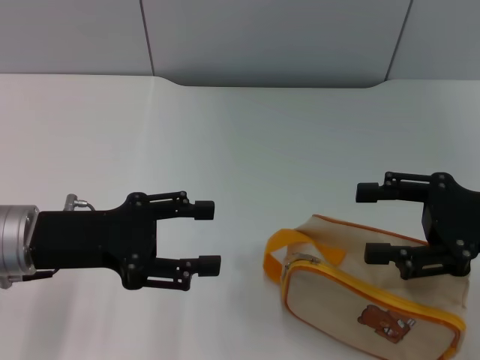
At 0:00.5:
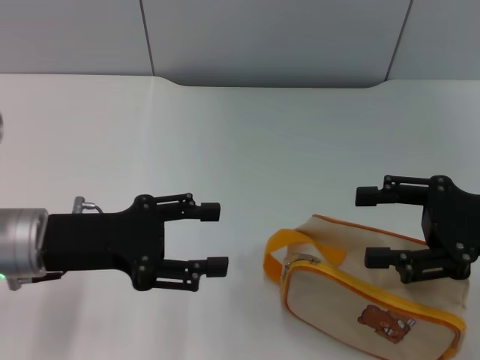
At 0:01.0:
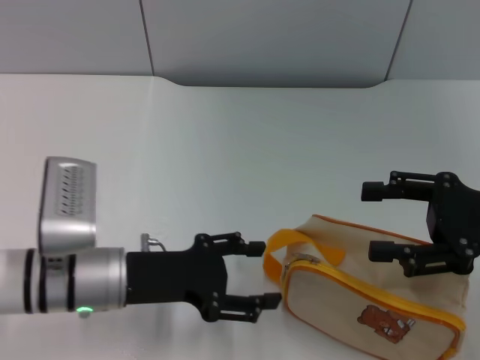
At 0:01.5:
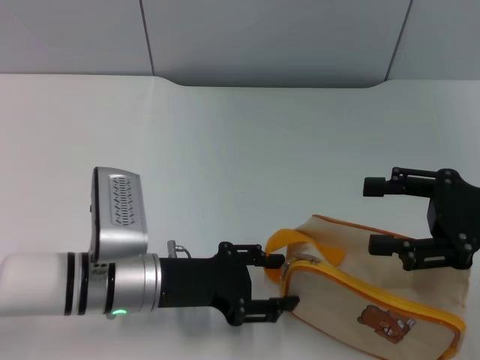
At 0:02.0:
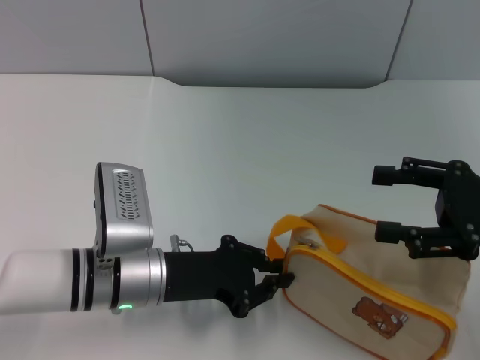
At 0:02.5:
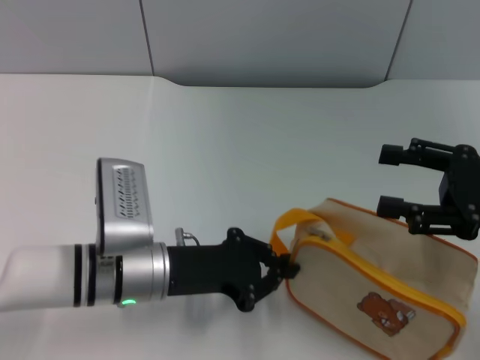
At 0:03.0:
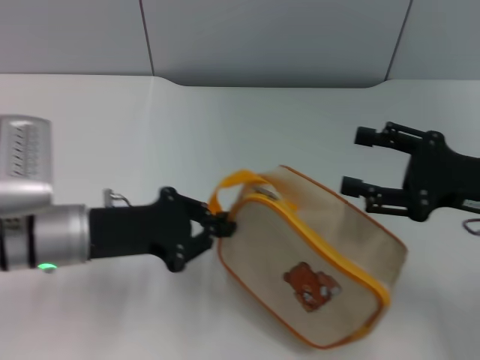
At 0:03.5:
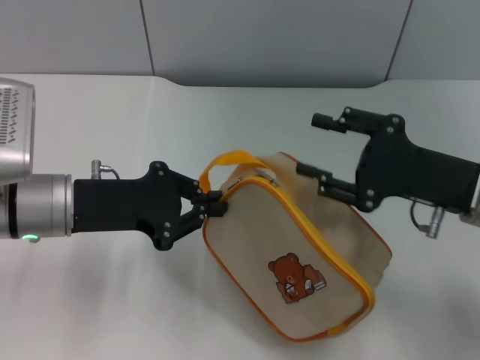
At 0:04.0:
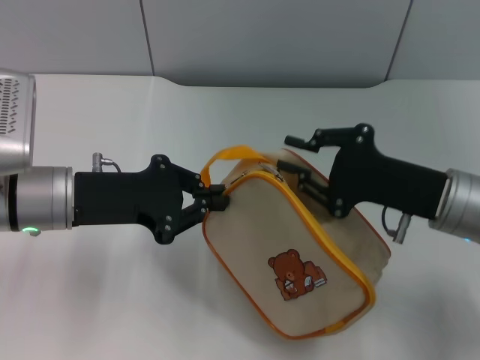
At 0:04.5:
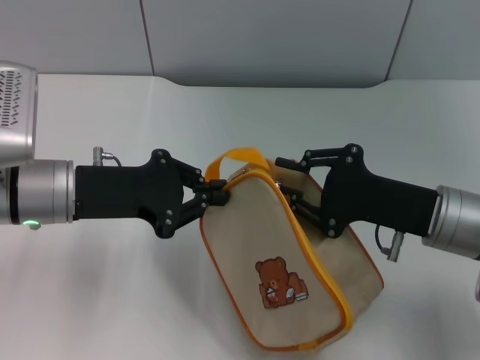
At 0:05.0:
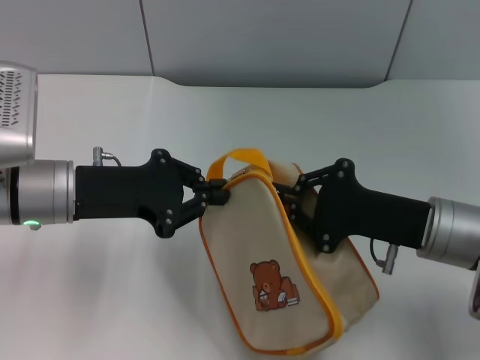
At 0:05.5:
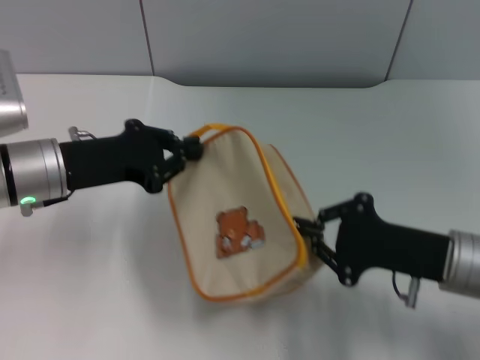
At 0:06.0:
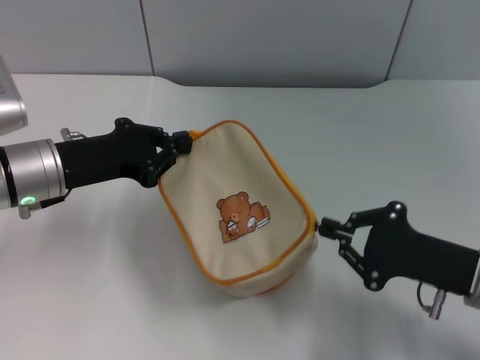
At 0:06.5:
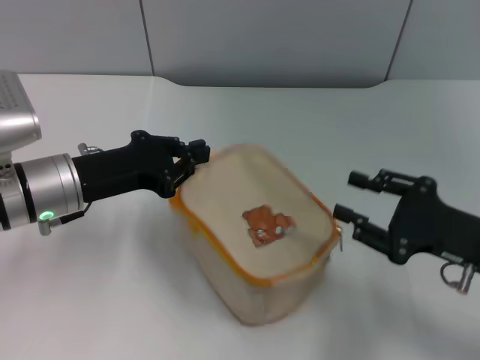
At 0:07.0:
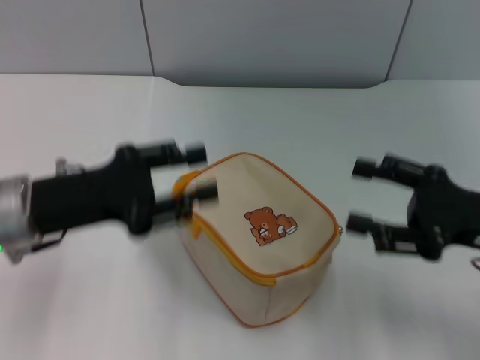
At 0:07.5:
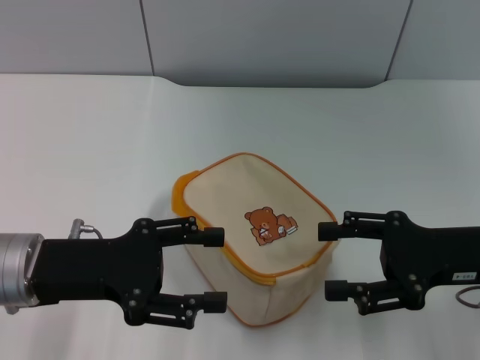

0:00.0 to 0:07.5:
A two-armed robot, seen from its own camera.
Step, 0:00.0 to 0:03.0: Pick up the bag with left gripper.
Step, 0:03.5 to 0:06.0: Unzip the zipper of bag with right gripper.
0:00.0 to 0:02.0: The left gripper goes about 10 cm to the right and downward, and closes its fingers.
0:02.0 to 0:04.0: The right gripper heads to the left, covering approximately 10 cm, and closes, while the left gripper heads upward and to the left, covering approximately 10 cm, and closes its fingers.
0:04.0 to 0:05.5: The right gripper moves roughly 5 cm.
0:05.5 to 0:07.5: The right gripper shifts by some 5 cm, and opens up, while the left gripper heads backward, covering approximately 10 cm, and opens.

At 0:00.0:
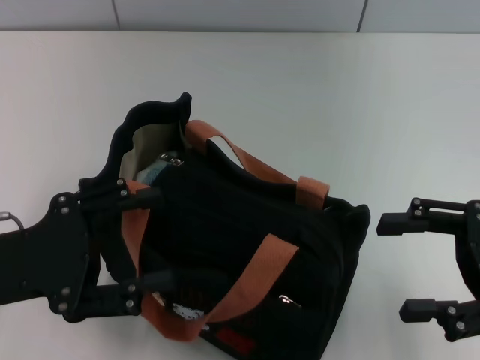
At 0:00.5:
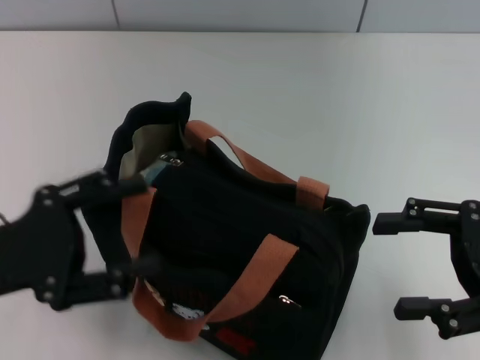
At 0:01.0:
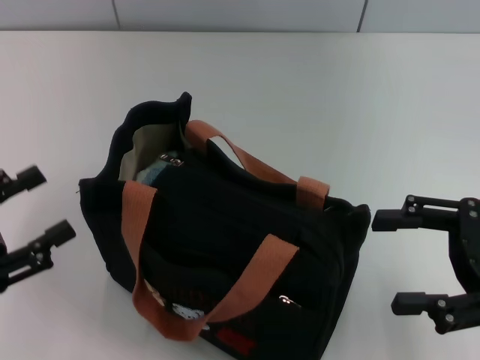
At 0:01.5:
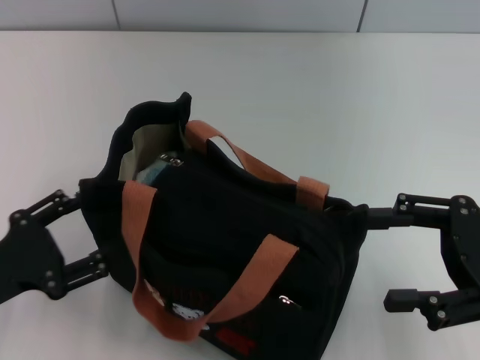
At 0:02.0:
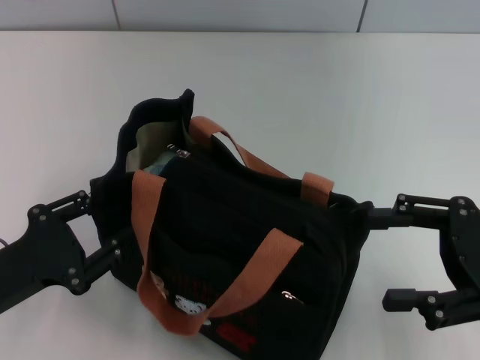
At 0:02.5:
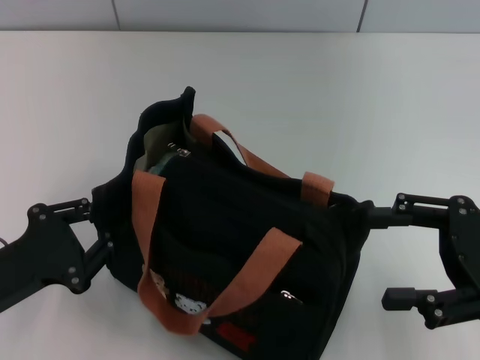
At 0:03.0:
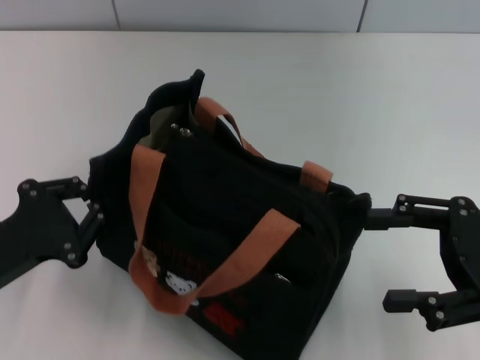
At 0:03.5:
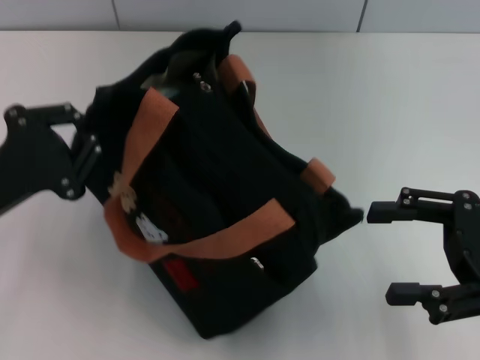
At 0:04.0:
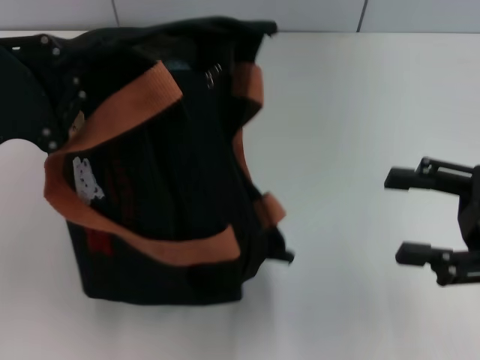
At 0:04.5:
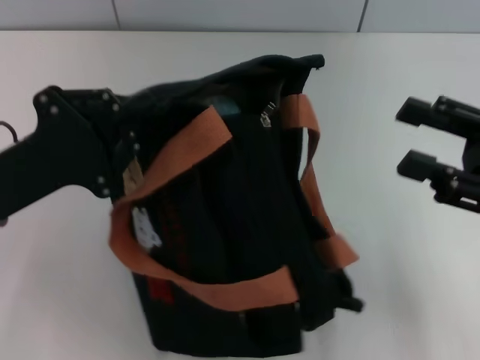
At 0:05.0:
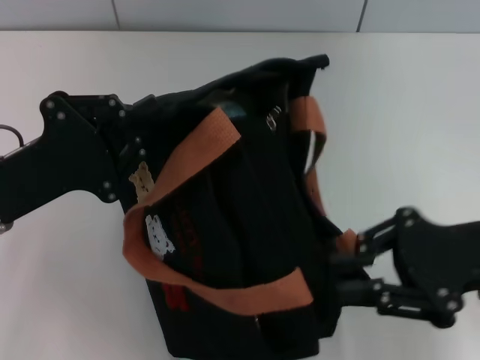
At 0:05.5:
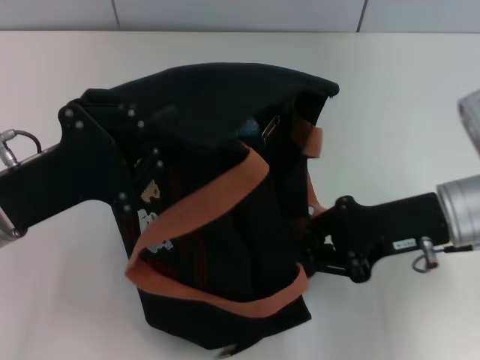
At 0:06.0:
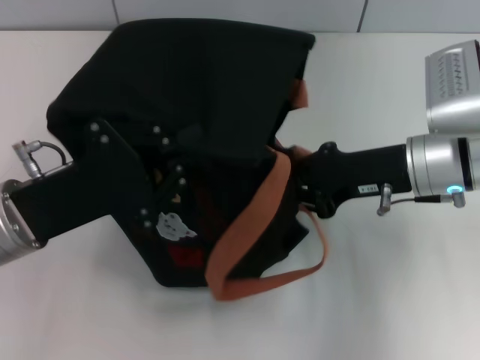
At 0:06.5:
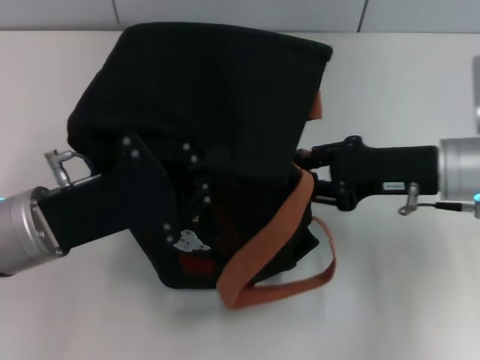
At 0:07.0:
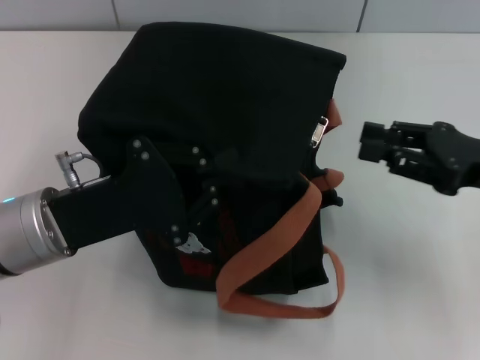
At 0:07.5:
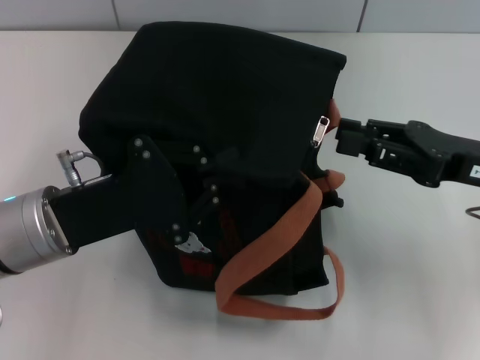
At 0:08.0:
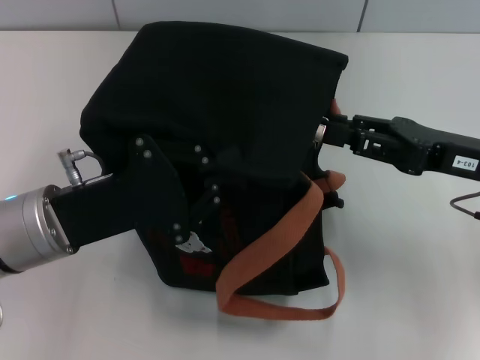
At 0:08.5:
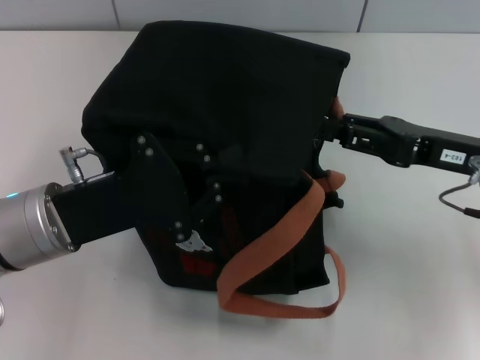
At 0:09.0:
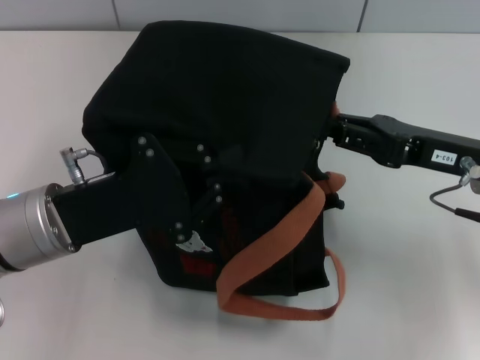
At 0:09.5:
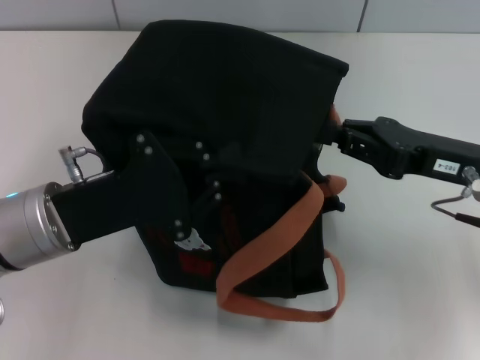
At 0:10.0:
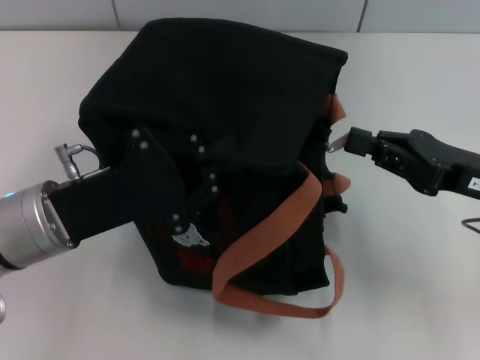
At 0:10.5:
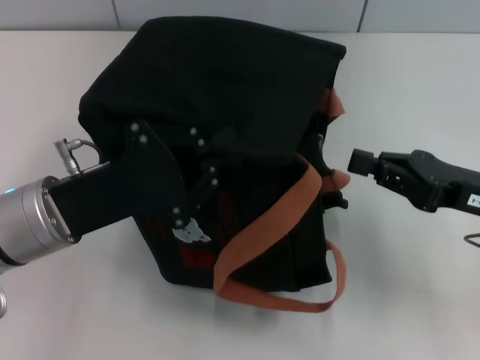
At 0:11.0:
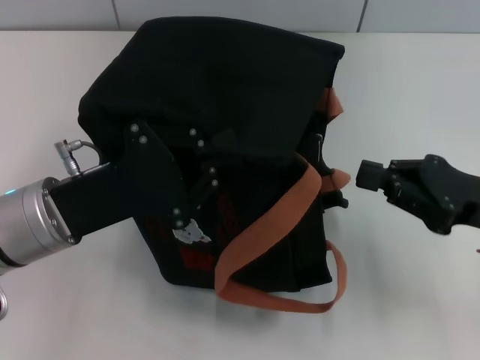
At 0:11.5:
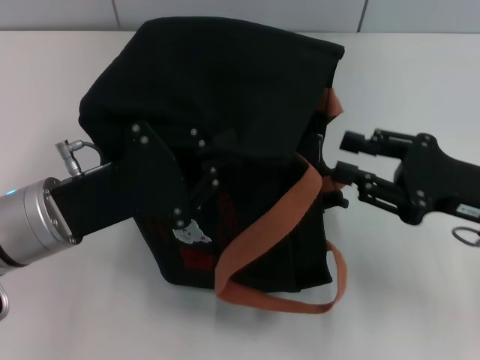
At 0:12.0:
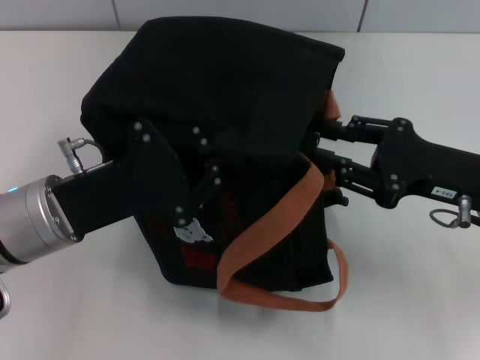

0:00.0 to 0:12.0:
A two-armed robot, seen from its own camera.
0:00.0 to 0:02.0: The left gripper shifts about 5 cm downward.
0:02.0 to 0:04.0: The left gripper travels upward and forward by roughly 10 cm, and closes up.
0:04.0 to 0:06.0: The right gripper moves to the left and forward, some 15 cm, and closes its fingers; the left gripper shifts some 5 cm to the right.
0:06.0 to 0:08.0: The right gripper goes roughly 5 cm to the right.
0:08.0 to 0:10.0: The right gripper closes up.
0:10.0 to 0:12.0: The right gripper opens its fingers.

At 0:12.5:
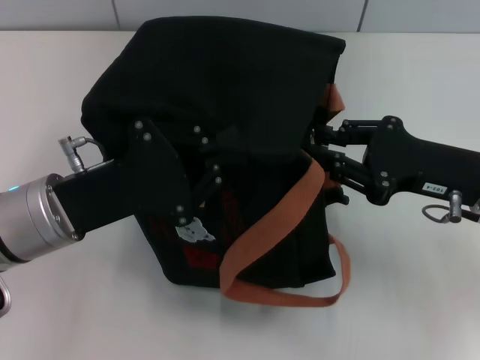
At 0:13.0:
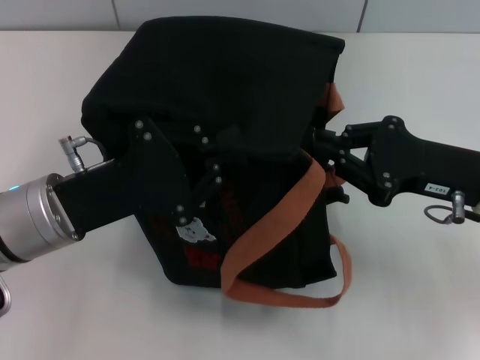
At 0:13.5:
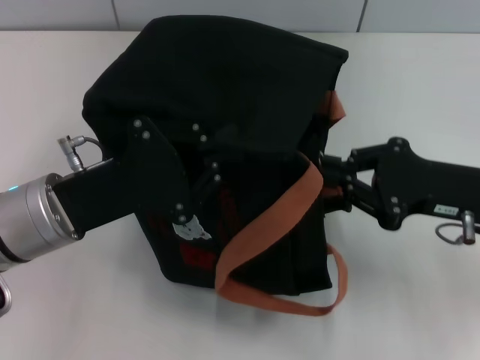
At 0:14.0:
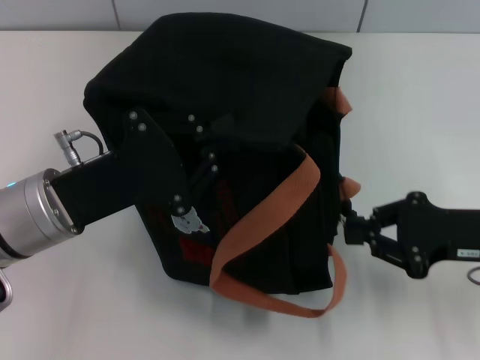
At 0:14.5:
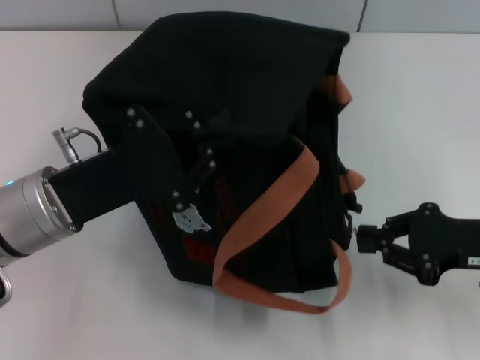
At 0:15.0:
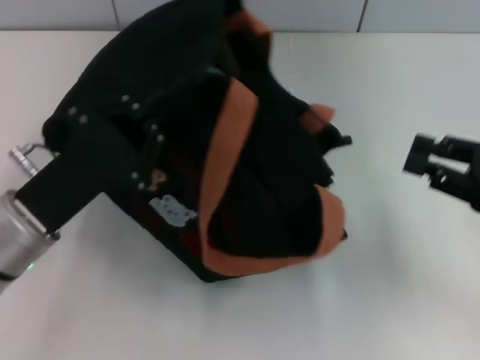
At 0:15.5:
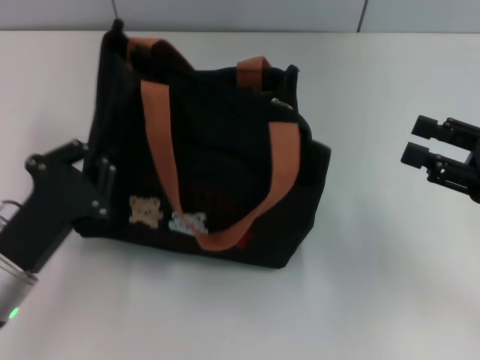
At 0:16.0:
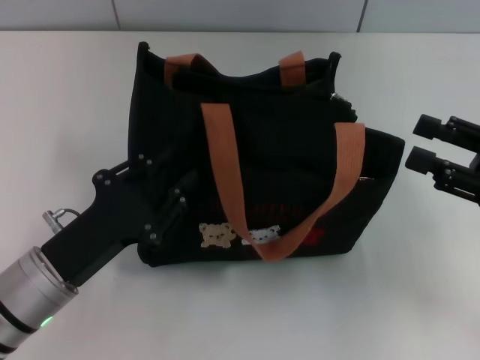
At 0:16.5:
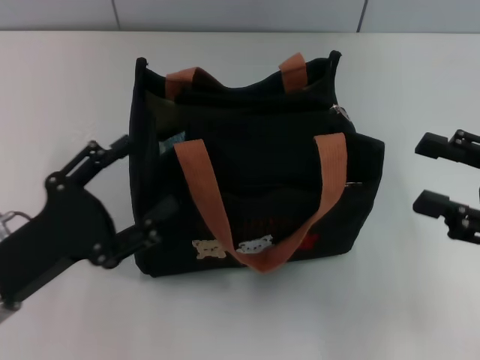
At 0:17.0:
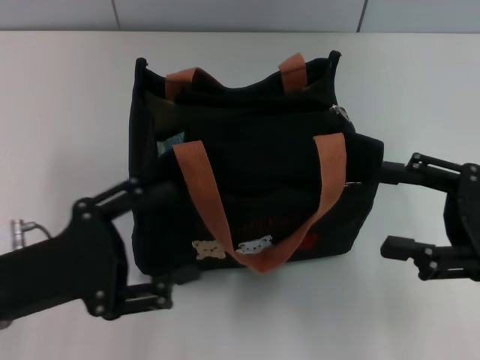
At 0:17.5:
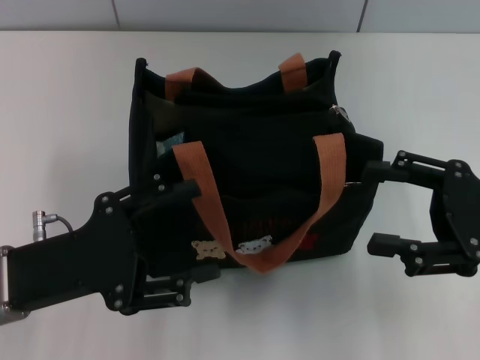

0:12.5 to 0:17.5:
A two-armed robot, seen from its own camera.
Step, 0:12.5 to 0:14.5: Pull open the zipper with your right hand.
Step, 0:15.5 to 0:16.0: Grab the bag with your left hand.
0:12.5 to 0:15.0: The right gripper heads to the right, covering roughly 10 cm.
0:15.0 to 0:17.5: The left gripper opens up, while the right gripper opens.

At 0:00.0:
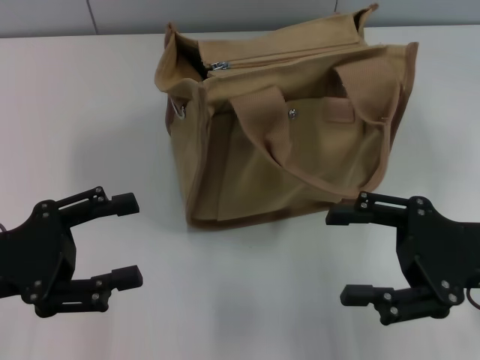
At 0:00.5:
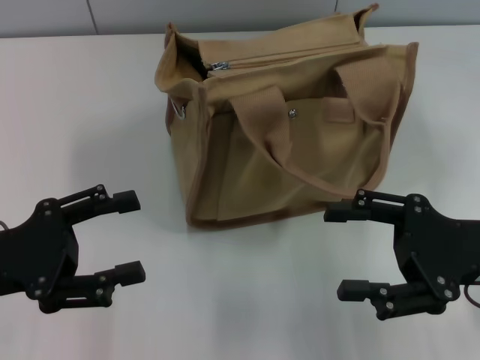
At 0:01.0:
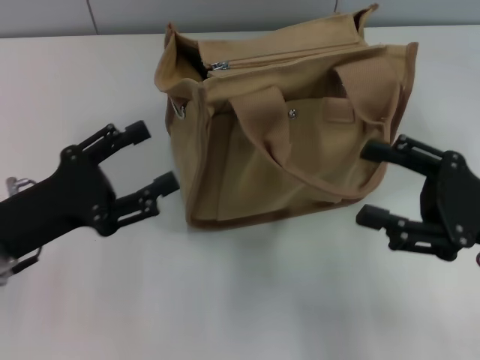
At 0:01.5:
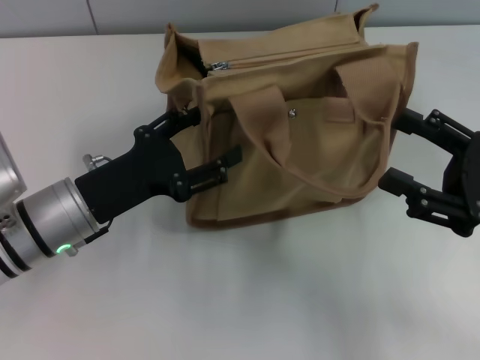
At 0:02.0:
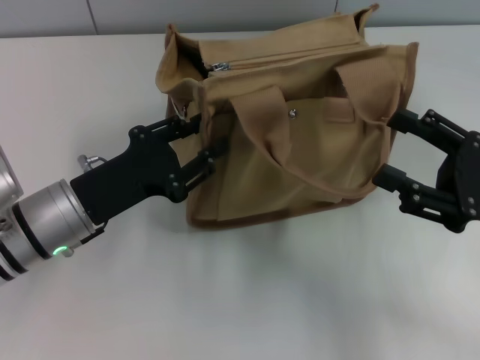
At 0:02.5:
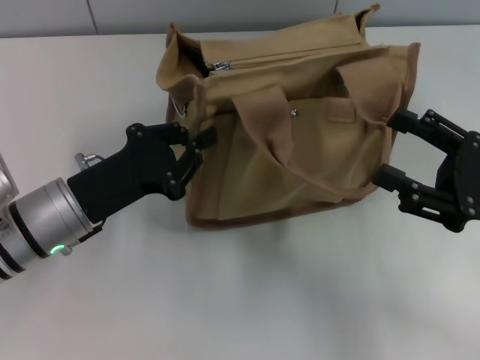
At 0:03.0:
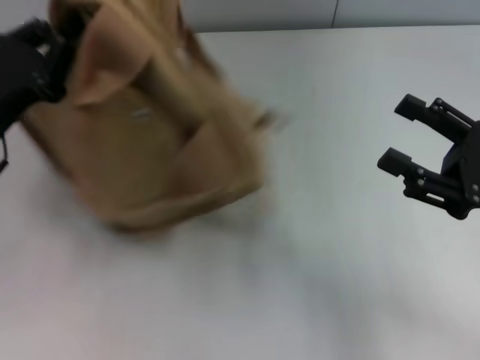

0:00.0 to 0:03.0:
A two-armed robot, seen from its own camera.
0:00.0 to 0:01.5: The left gripper goes some 10 cm to the right and forward.
0:01.5 to 0:03.0: The left gripper is displaced to the left by roughly 5 cm, and closes its fingers.
